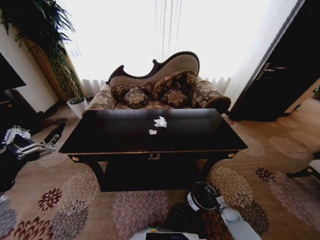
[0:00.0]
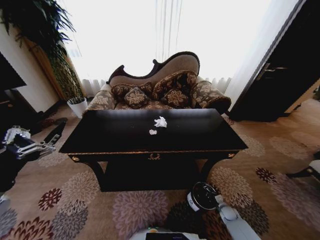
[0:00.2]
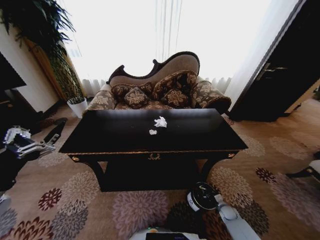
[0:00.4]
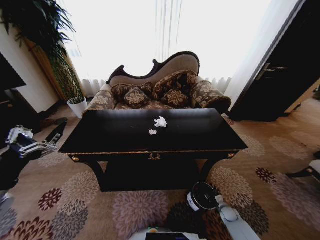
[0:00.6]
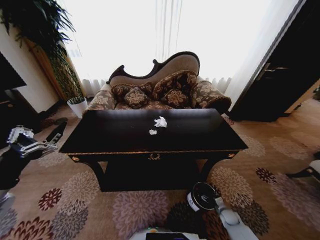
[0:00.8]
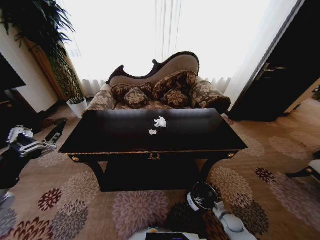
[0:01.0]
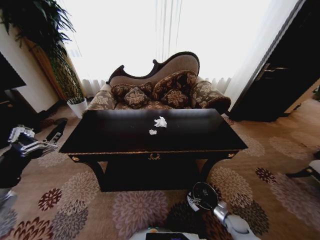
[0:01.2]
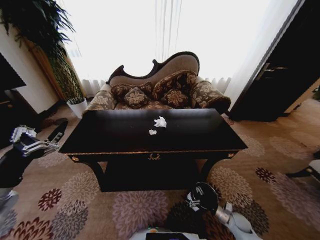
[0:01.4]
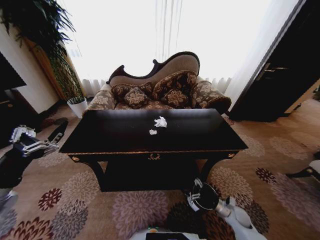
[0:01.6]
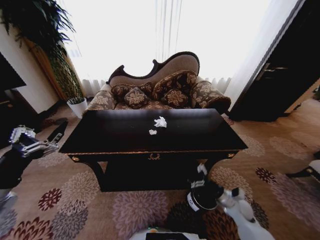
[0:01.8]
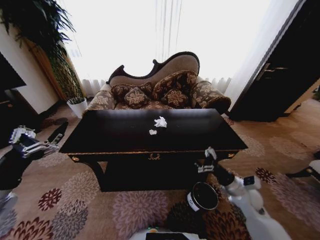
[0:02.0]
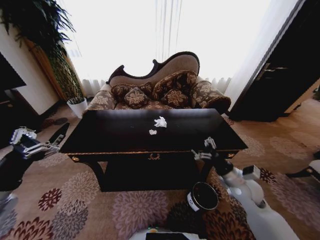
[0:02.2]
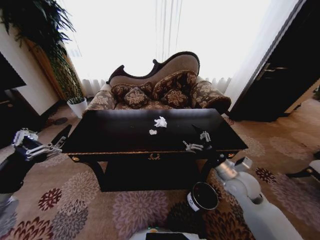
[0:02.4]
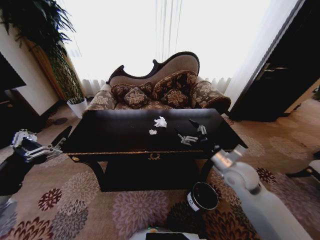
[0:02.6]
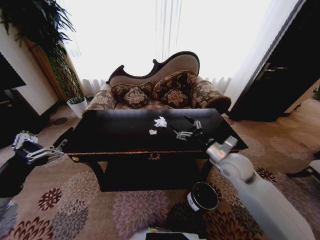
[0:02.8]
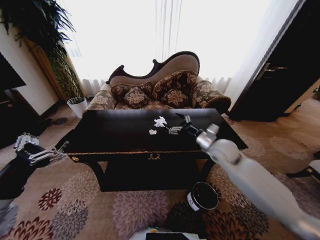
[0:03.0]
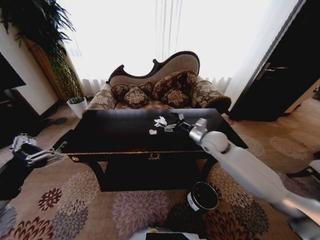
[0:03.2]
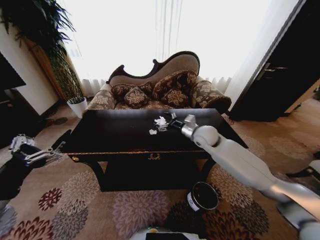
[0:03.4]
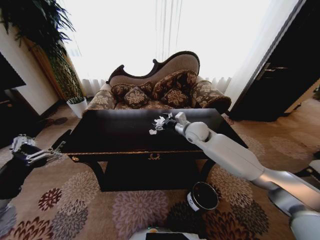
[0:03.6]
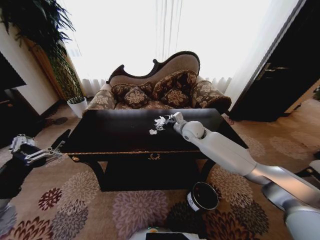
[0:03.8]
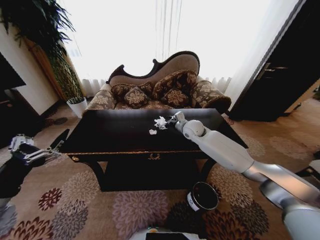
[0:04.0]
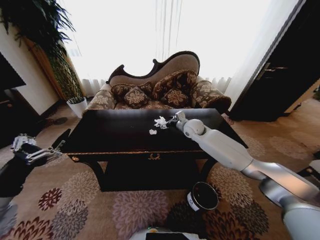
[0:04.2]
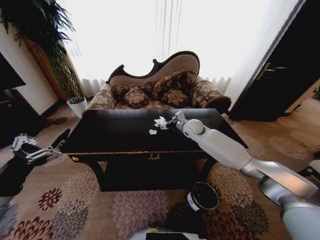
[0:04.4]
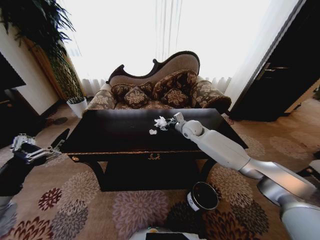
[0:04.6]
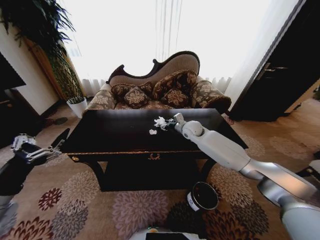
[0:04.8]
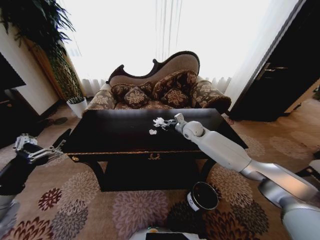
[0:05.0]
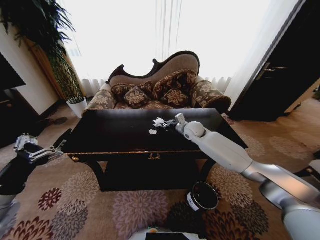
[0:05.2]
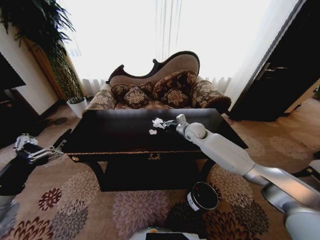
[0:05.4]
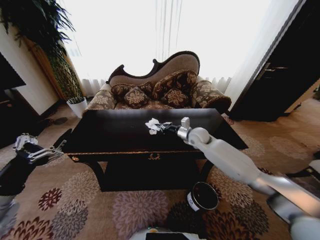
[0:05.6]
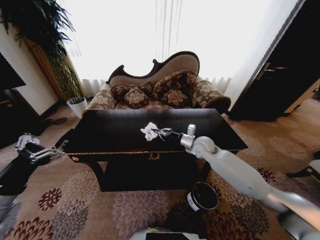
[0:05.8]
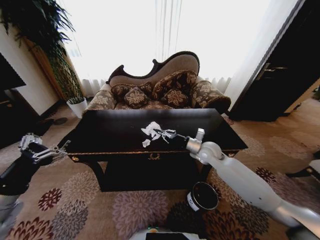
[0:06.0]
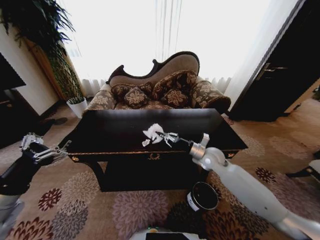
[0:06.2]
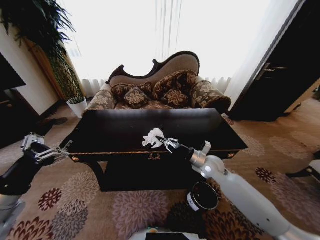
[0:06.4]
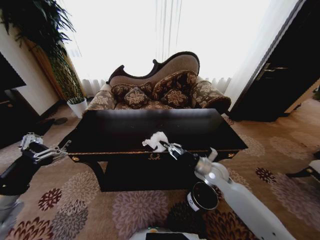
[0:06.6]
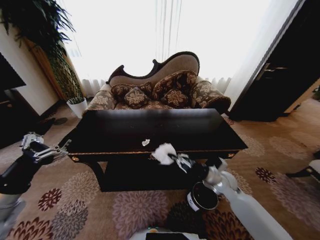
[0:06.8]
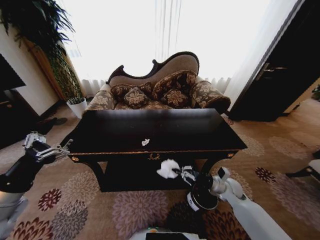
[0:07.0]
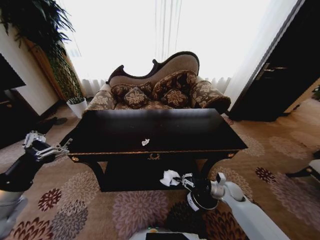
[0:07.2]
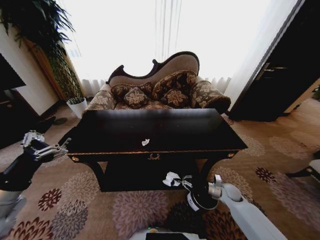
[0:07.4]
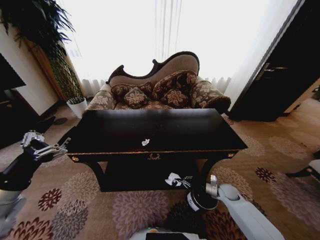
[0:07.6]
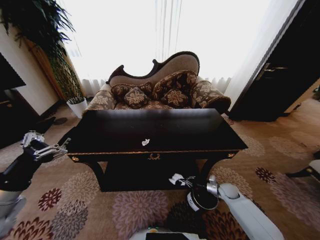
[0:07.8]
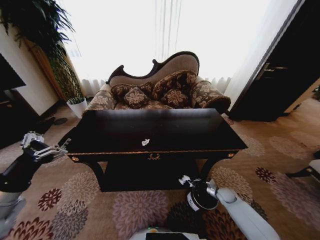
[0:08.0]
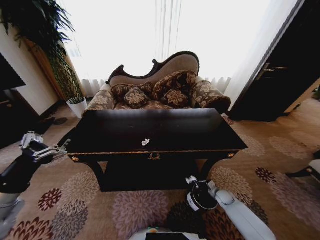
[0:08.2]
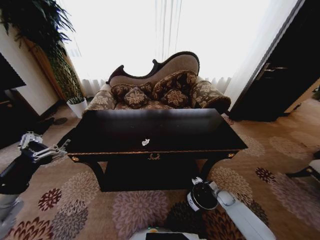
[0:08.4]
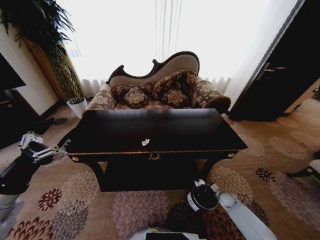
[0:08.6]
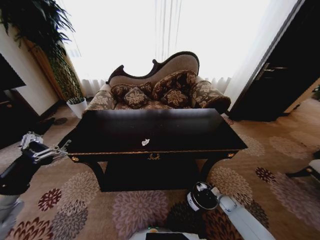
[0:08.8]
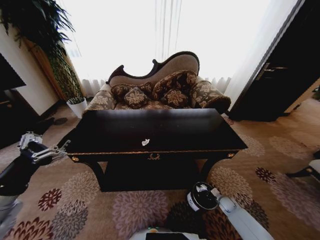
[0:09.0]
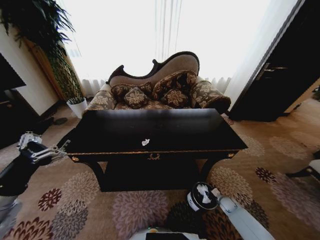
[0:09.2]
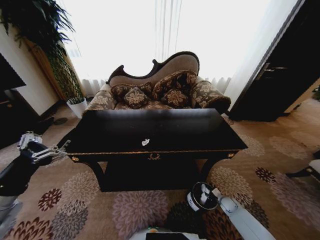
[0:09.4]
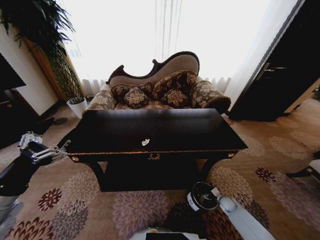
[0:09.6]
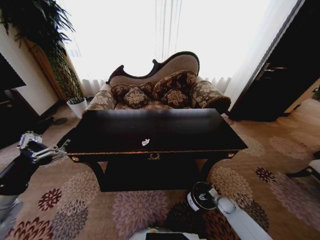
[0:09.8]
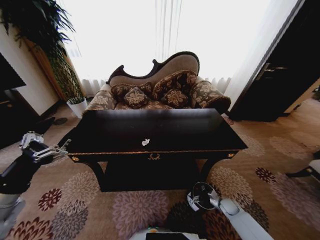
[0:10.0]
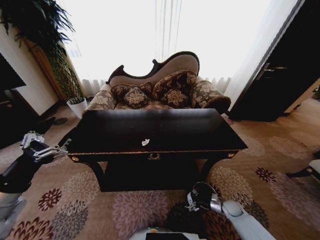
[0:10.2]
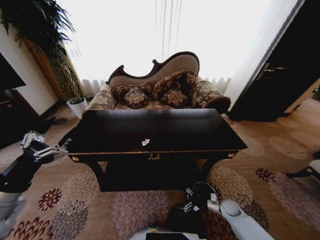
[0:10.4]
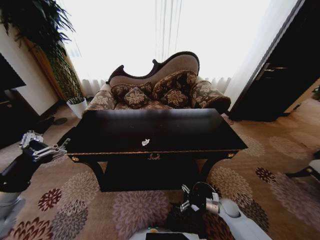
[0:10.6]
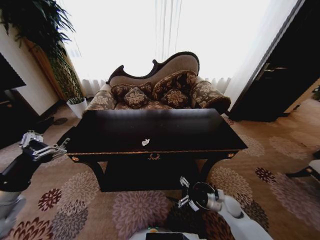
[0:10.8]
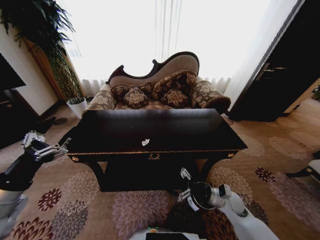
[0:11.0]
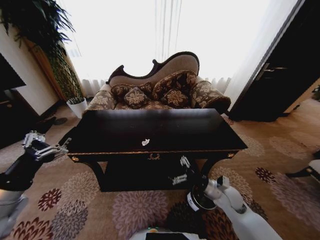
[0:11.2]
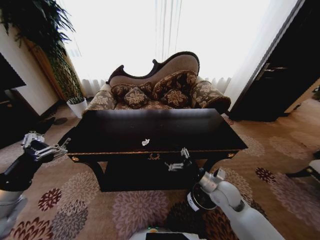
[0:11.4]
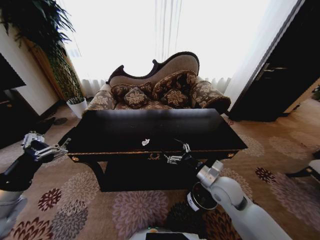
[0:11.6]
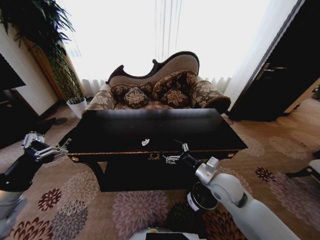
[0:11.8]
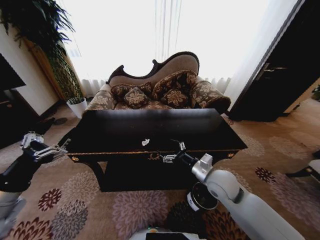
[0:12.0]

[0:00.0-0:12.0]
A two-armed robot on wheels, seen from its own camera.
Task of the whole recording: Move to the front of the table and place the trash on the table into the trash bin.
0:00.0 to 0:01.6: The right gripper heads upward and to the left, covering roughly 15 cm, and opens its fingers.
0:01.6 to 0:03.0: The right gripper shifts some 35 cm upward, forward and to the left.
0:03.0 to 0:04.4: The right gripper heads forward and to the left, covering some 20 cm.
0:04.4 to 0:06.0: The right gripper heads backward and to the right, covering some 15 cm, and closes its fingers.
0:06.0 to 0:07.6: The right gripper goes roughly 30 cm downward, to the right and backward.
0:07.6 to 0:09.0: The right gripper travels downward by about 10 cm.
0:09.0 to 0:10.4: The right gripper ends up approximately 5 cm from where it was, and opens.
0:10.4 to 0:12.0: The right gripper travels upward and to the left by some 35 cm.

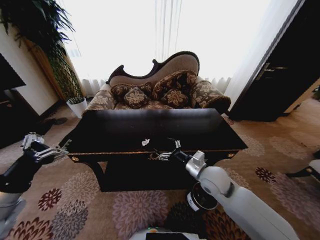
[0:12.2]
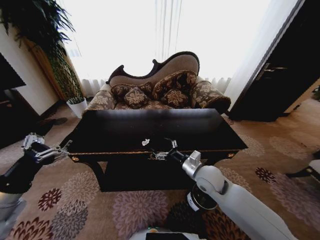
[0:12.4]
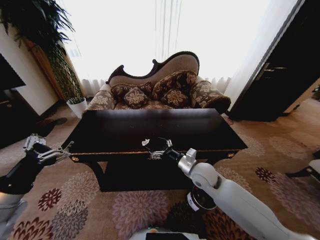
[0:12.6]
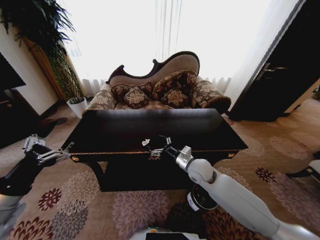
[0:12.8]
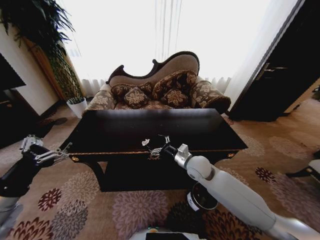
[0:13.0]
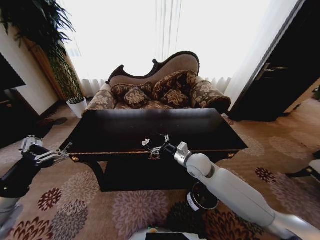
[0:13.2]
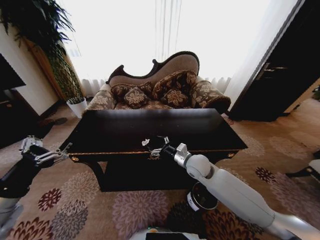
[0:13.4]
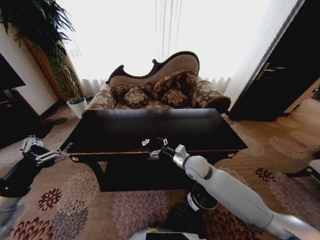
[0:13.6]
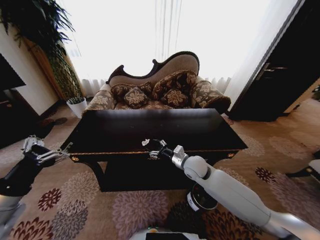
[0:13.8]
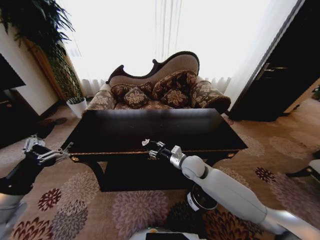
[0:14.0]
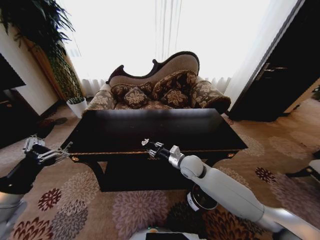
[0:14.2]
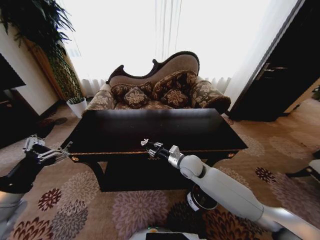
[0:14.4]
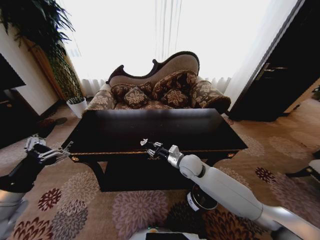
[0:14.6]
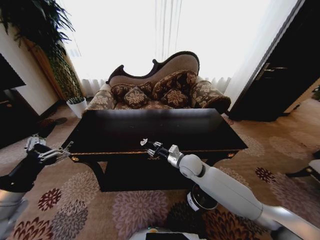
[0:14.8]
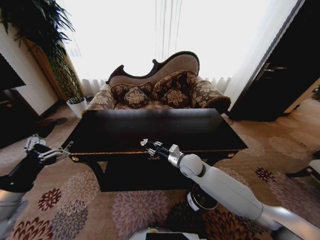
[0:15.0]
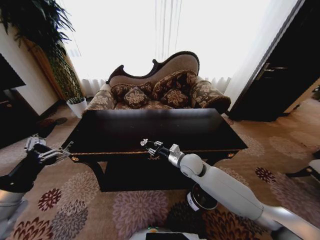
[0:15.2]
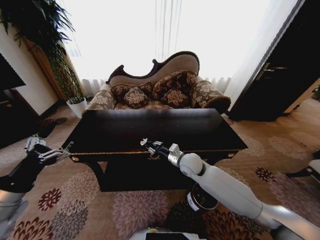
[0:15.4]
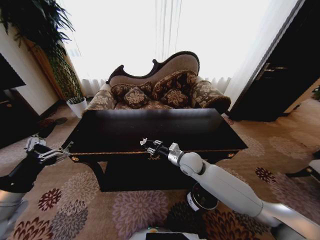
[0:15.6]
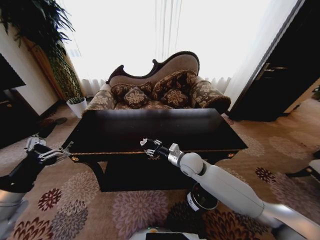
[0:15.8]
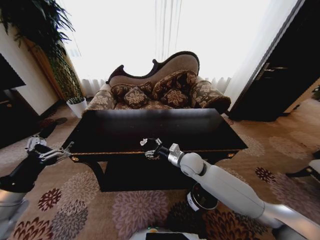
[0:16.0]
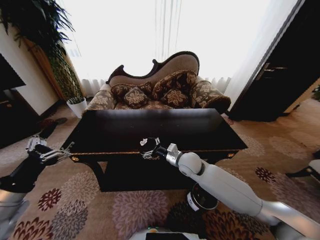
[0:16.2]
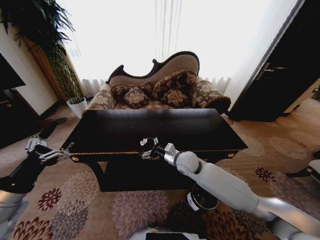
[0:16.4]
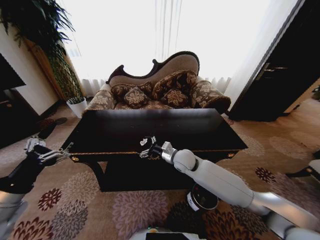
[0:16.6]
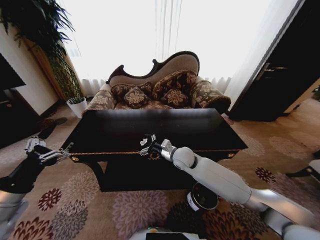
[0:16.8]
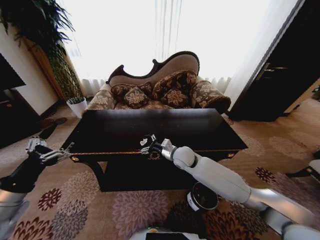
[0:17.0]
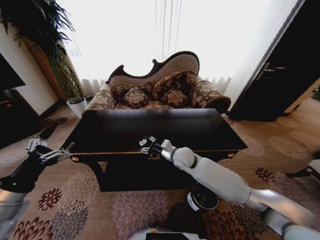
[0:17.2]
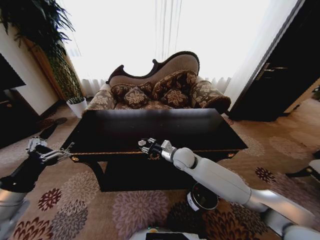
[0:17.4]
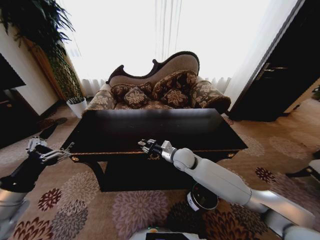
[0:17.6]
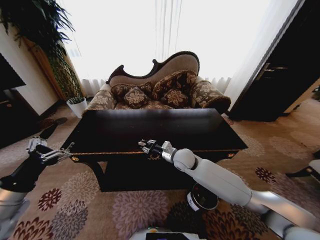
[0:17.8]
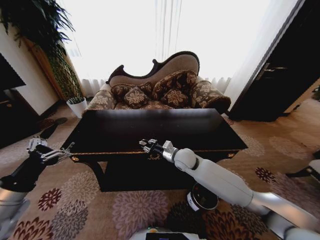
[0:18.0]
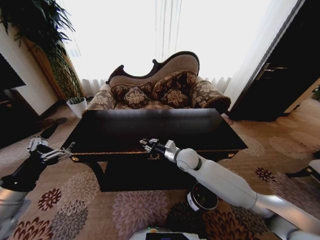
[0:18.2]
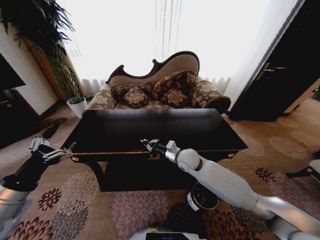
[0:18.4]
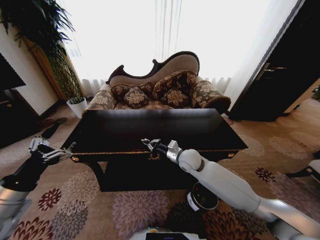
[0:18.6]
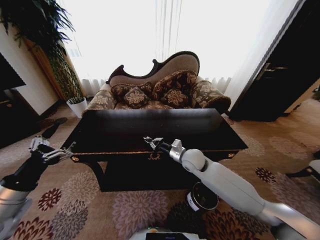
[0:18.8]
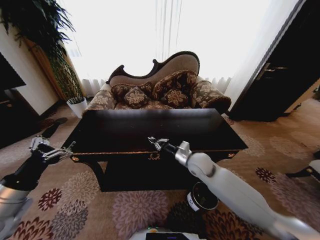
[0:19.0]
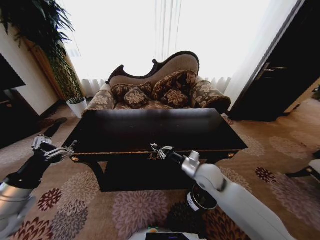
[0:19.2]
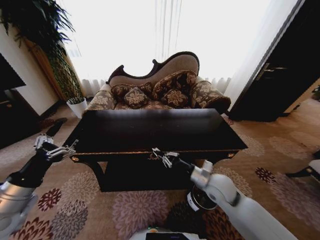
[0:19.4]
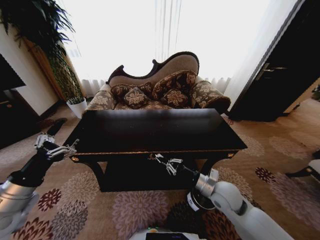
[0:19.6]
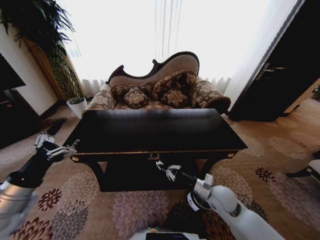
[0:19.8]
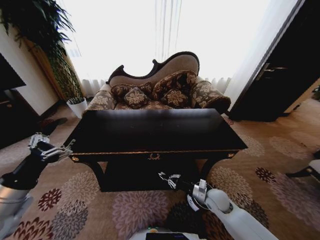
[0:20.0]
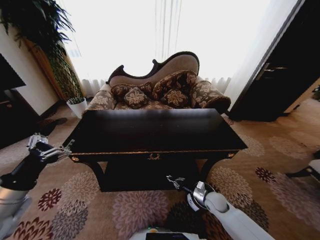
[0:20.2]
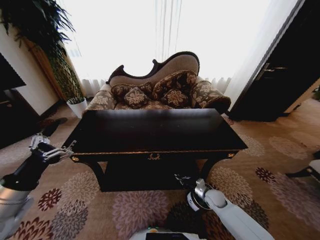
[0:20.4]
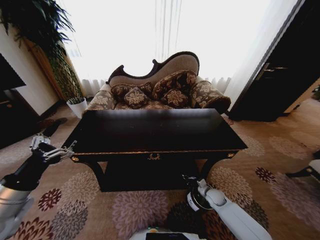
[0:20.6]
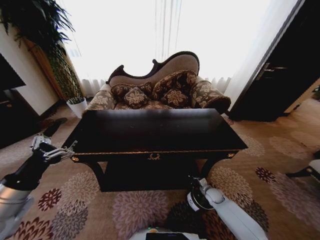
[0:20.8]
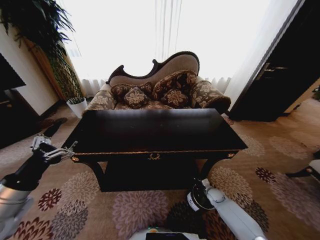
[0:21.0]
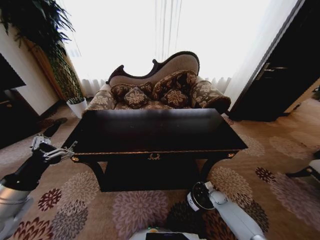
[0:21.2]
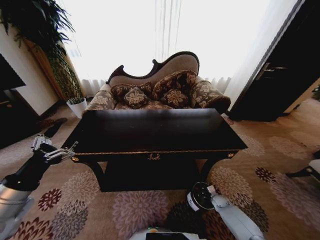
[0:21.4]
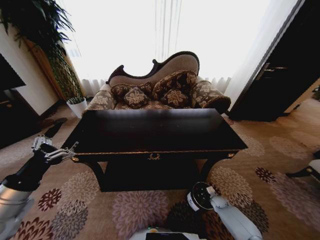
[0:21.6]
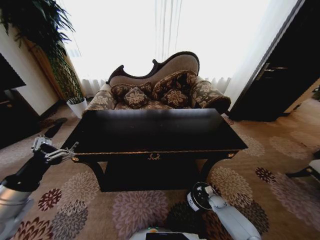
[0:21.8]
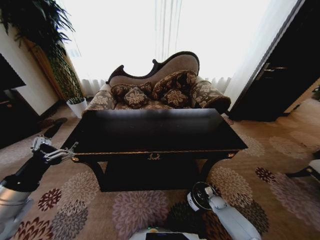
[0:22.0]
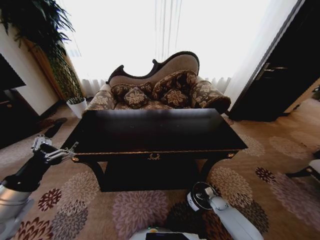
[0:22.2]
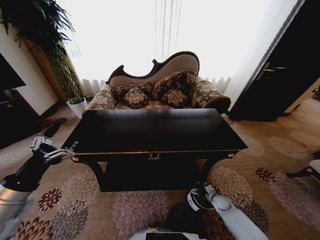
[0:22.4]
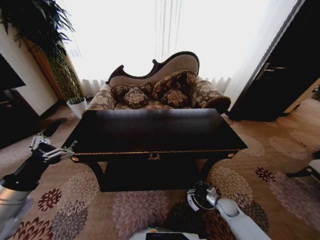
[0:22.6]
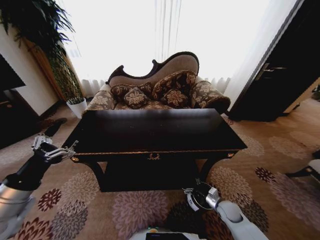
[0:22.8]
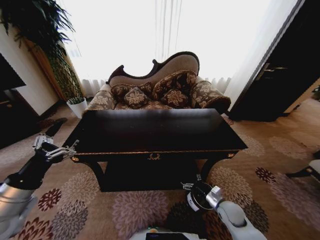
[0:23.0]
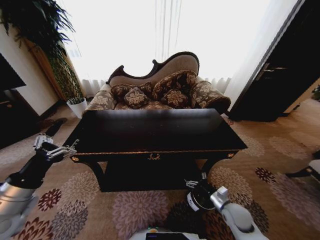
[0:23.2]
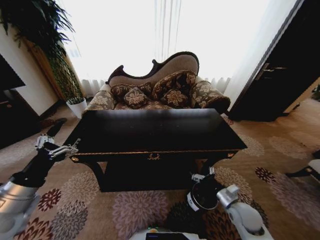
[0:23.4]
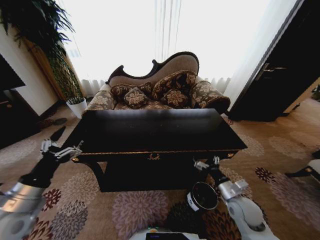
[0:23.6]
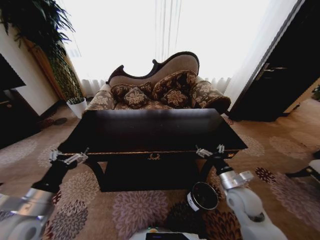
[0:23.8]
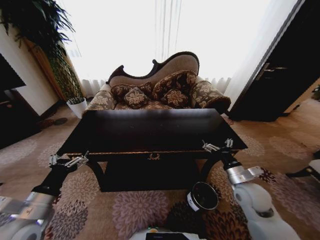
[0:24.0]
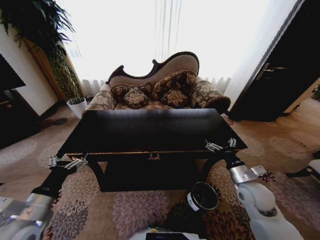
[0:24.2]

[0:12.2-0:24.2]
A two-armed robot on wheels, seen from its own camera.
Task of the whole recording: Move to the front of the table and place the trash on the table into the trash bin.
0:12.2 to 0:13.8: The right gripper moves forward, some 5 cm.
0:13.8 to 0:15.2: The right gripper closes its fingers.
0:15.2 to 0:16.6: The right gripper opens up.
0:16.6 to 0:18.2: The right gripper closes.
0:18.2 to 0:19.8: The right gripper shifts approximately 20 cm backward, to the right and downward.
0:19.8 to 0:21.2: The right gripper travels downward and to the right by about 30 cm.
0:21.2 to 0:22.6: The right gripper heads upward and backward, covering some 10 cm, and opens its fingers.
0:22.6 to 0:24.2: The left gripper is displaced downward by about 5 cm; the right gripper heads upward, covering approximately 25 cm.
